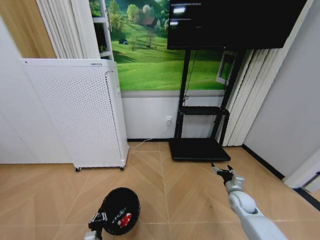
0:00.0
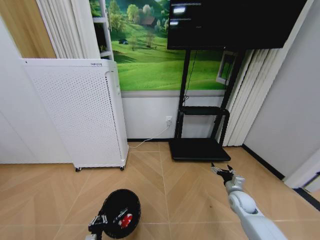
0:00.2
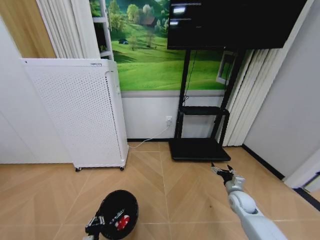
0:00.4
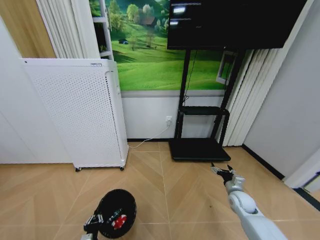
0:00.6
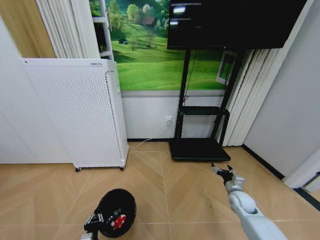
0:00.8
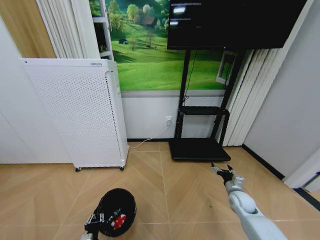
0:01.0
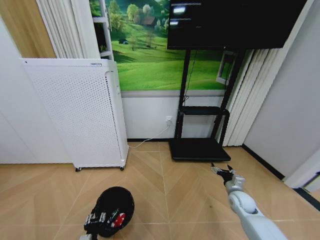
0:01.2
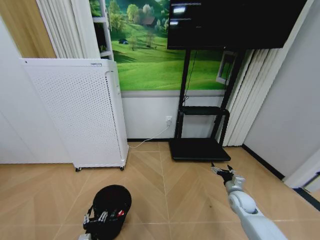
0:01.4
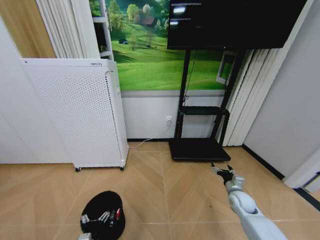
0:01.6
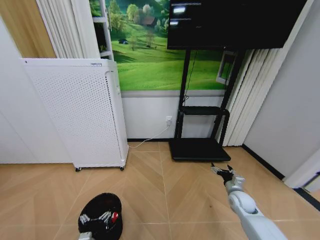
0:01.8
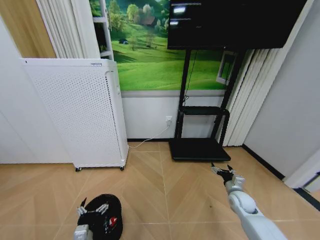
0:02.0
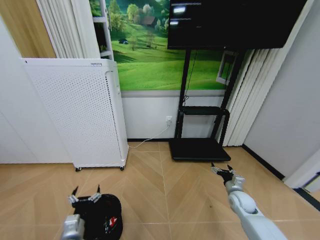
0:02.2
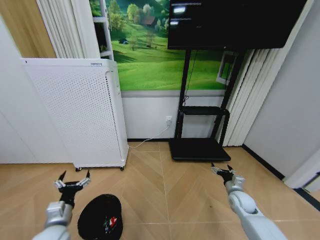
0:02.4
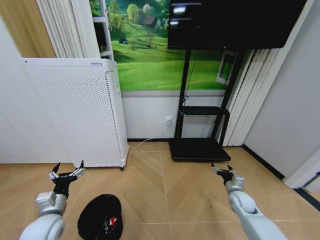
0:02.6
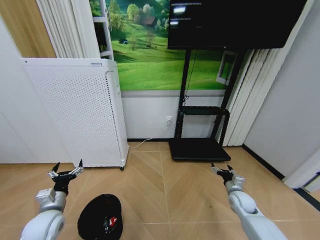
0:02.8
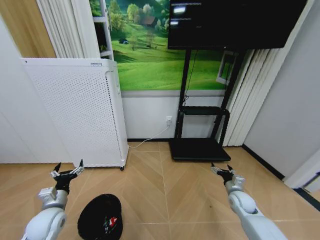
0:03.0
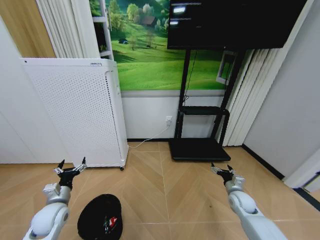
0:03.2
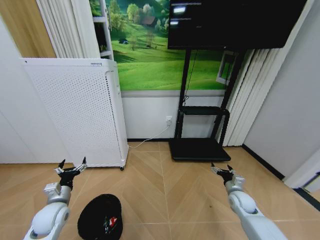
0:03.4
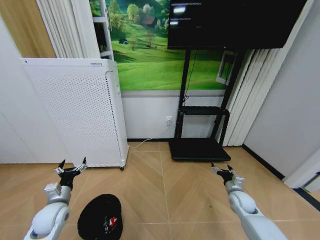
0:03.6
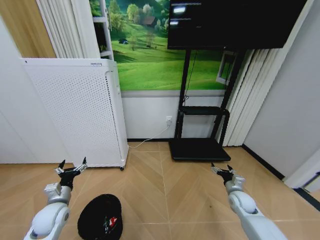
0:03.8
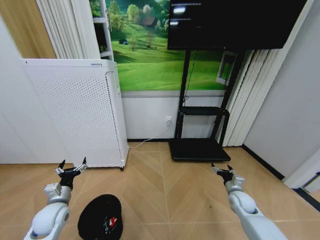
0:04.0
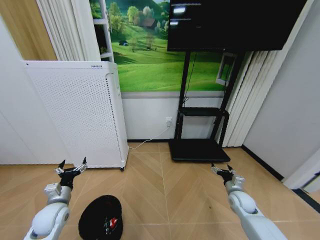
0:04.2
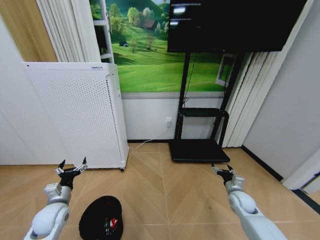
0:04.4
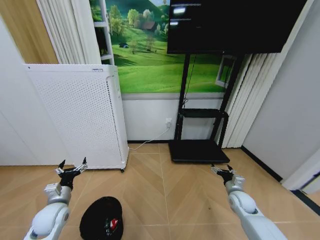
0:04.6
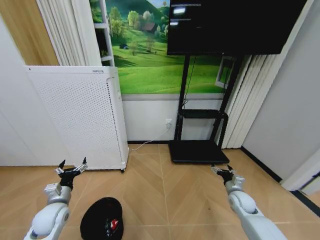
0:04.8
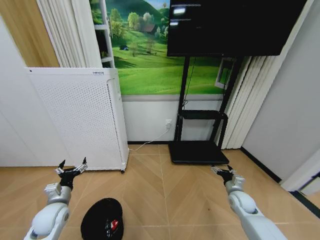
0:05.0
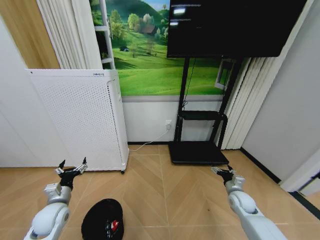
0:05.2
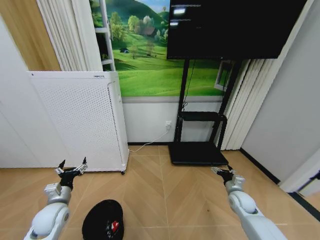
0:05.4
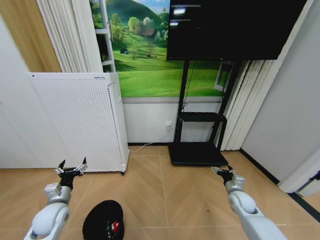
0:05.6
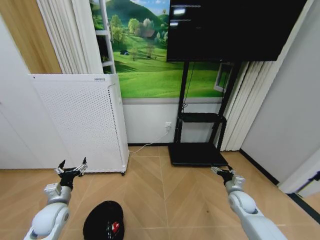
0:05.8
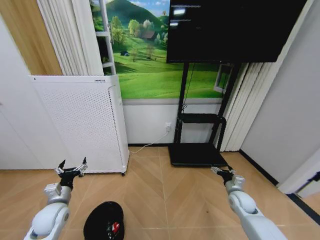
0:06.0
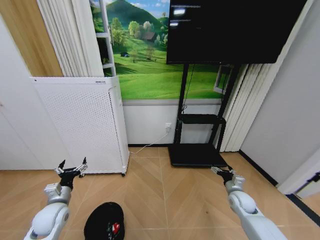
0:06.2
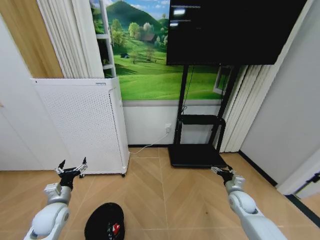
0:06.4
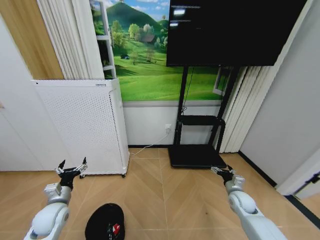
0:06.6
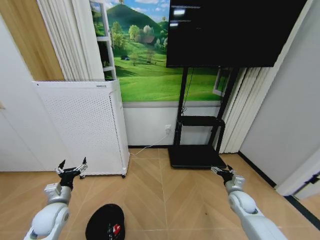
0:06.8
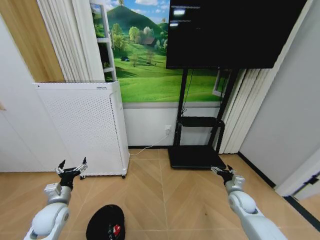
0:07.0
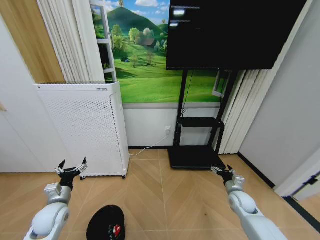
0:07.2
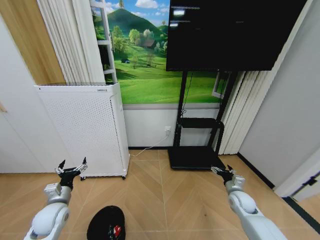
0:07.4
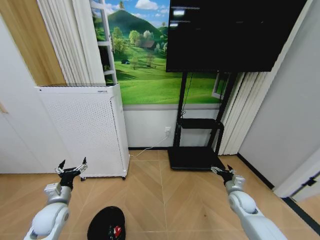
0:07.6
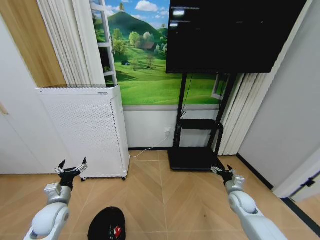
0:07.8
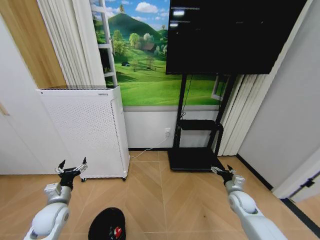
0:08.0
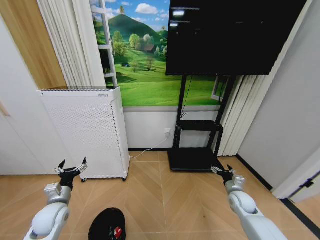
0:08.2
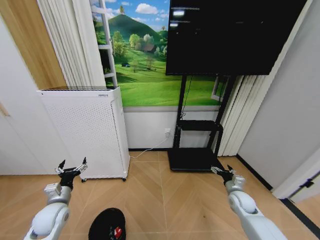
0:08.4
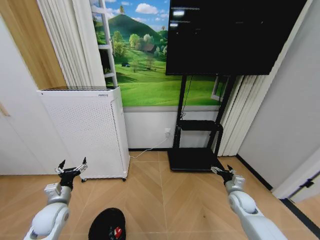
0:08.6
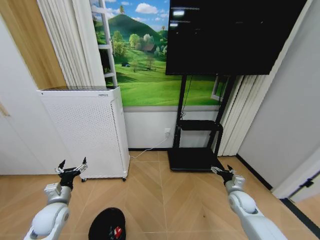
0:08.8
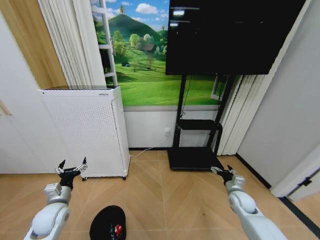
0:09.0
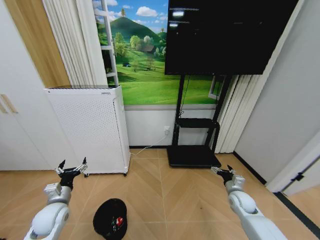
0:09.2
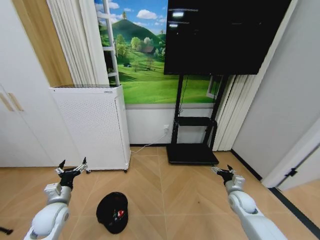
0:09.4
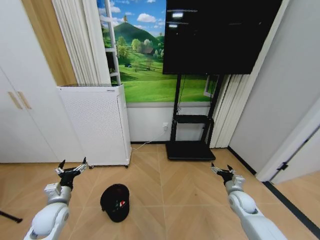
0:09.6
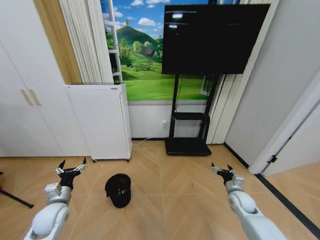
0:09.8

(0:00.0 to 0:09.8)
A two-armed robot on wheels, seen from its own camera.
Task of the whole recording: Pick up the trash bin and place the garbage on the floor into it.
0:00.0 - 0:01.4: The left gripper opens.
0:01.4 - 0:02.8: The left gripper shifts some 20 cm upward, to the left and forward, and opens its fingers.
0:02.8 - 0:04.2: The grippers make only small movements.
0:04.2 - 0:08.4: Neither gripper changes place.

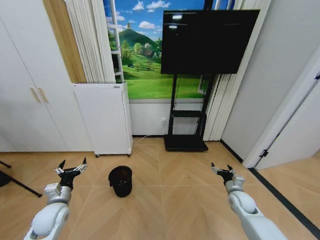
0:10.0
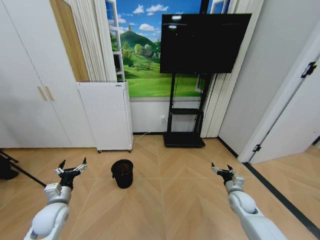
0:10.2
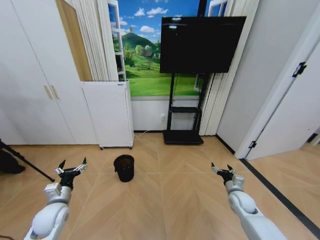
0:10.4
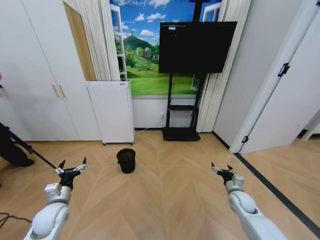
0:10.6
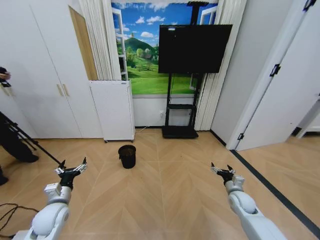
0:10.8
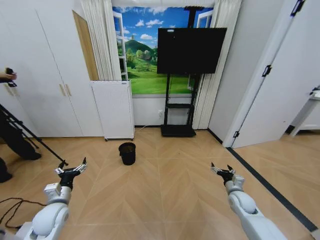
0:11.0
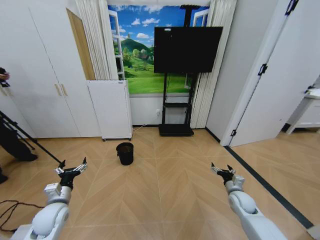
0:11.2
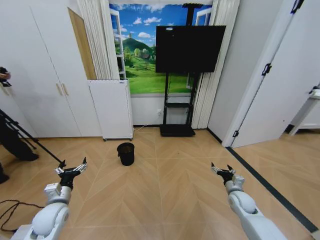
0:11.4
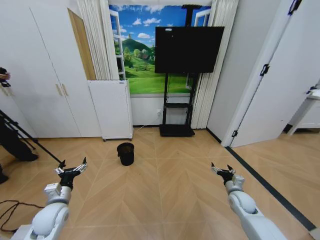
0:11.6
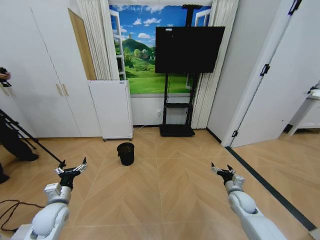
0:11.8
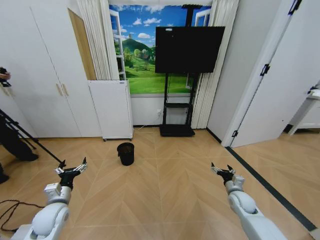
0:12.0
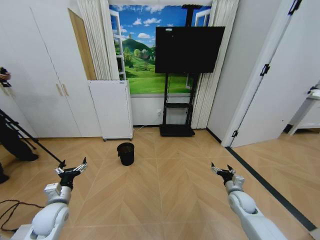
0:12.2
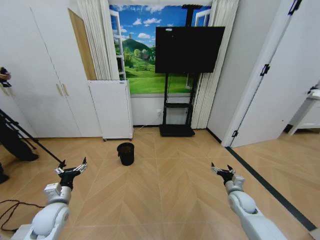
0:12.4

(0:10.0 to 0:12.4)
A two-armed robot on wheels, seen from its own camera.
Task of the whole recording: Pick up the trash bin and place the garbage on the floor into it.
0:11.2 - 0:12.4: Both grippers stay put.

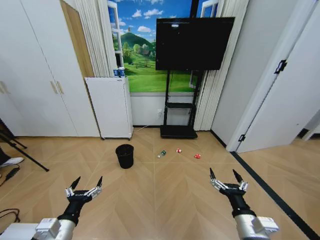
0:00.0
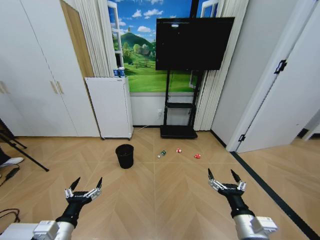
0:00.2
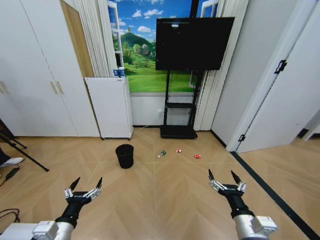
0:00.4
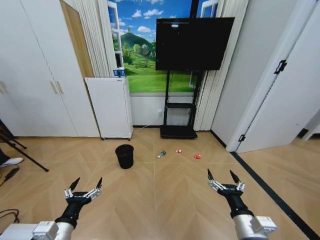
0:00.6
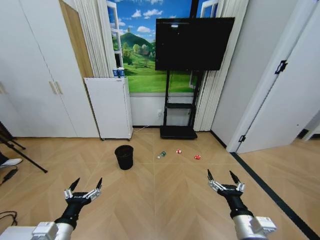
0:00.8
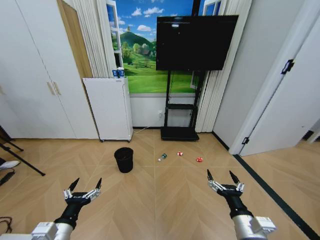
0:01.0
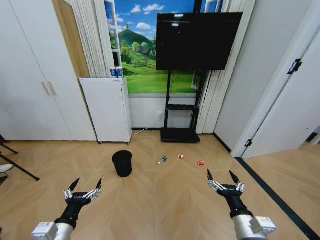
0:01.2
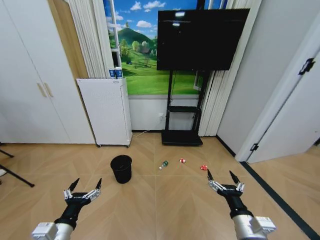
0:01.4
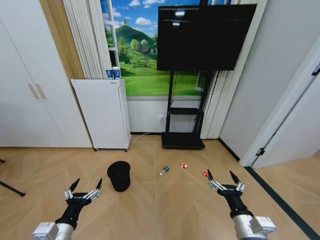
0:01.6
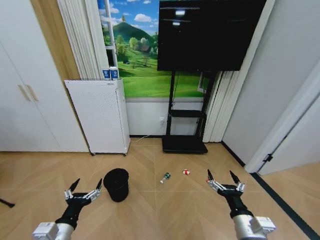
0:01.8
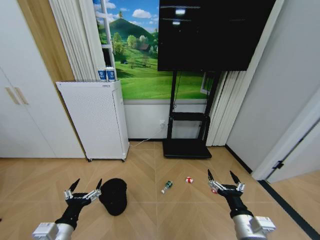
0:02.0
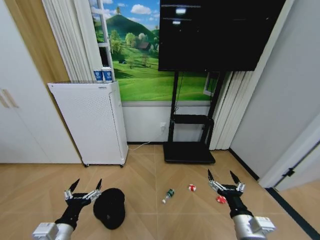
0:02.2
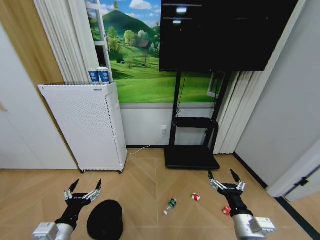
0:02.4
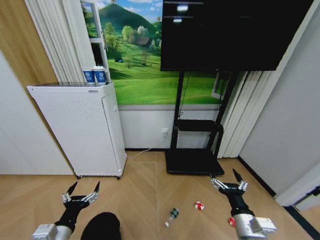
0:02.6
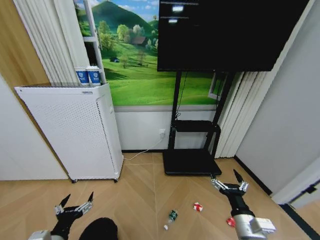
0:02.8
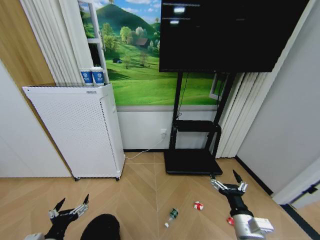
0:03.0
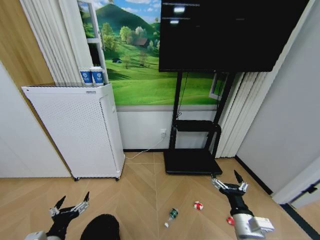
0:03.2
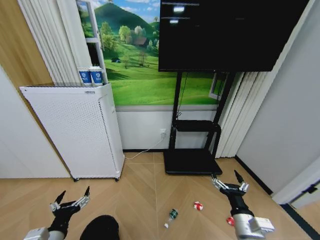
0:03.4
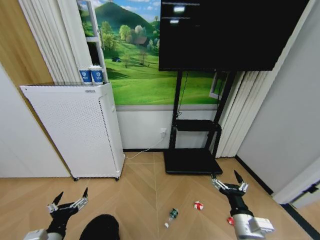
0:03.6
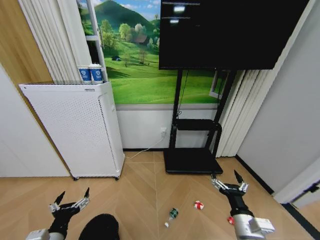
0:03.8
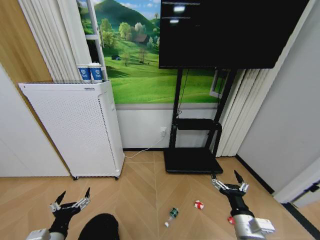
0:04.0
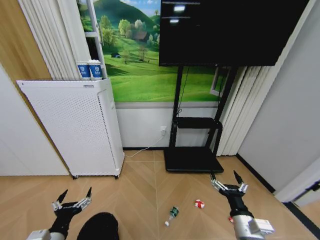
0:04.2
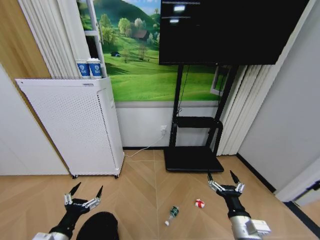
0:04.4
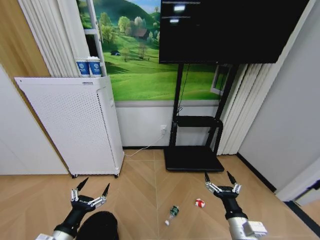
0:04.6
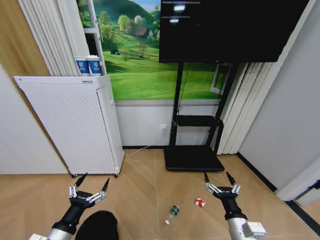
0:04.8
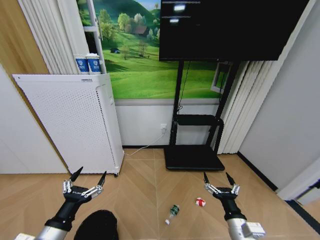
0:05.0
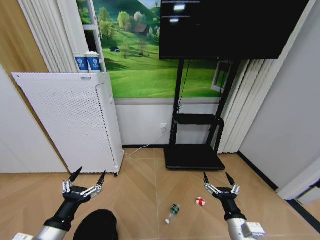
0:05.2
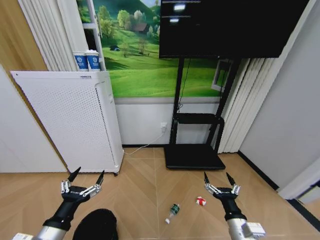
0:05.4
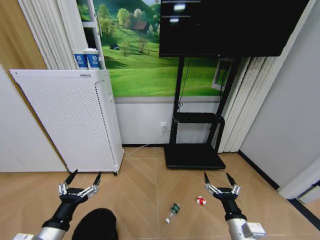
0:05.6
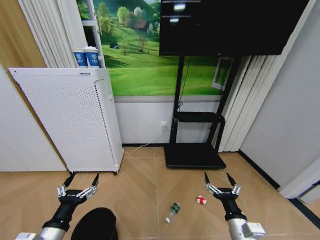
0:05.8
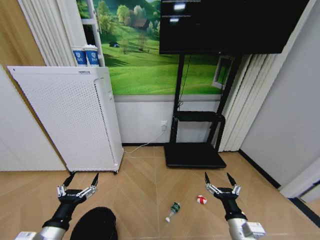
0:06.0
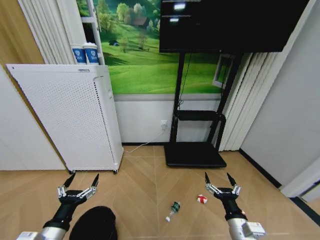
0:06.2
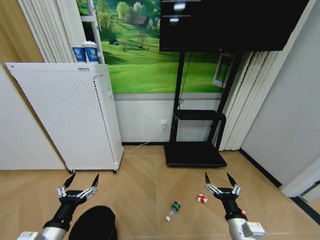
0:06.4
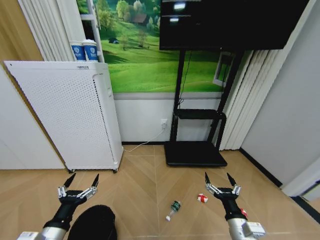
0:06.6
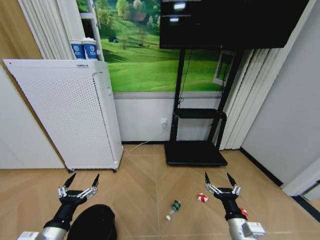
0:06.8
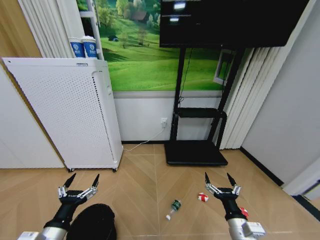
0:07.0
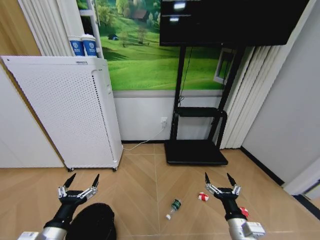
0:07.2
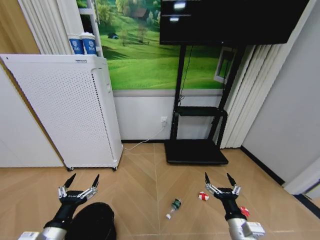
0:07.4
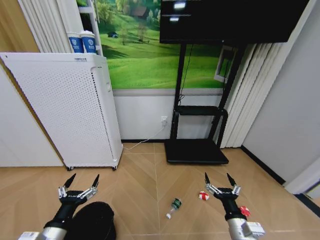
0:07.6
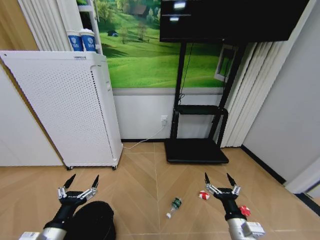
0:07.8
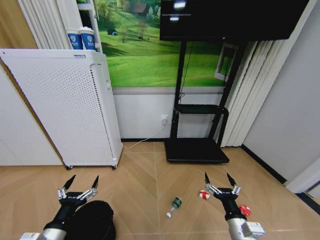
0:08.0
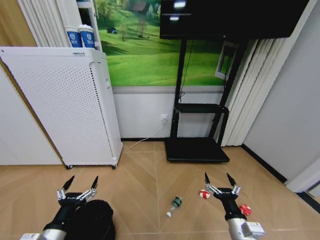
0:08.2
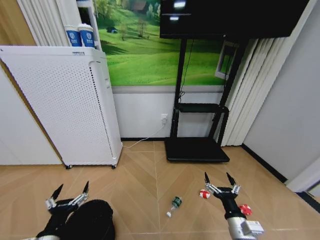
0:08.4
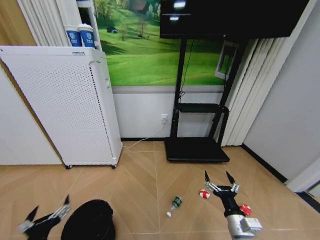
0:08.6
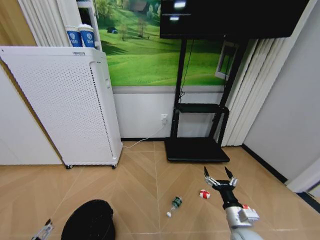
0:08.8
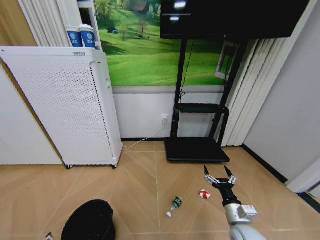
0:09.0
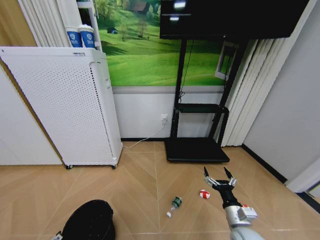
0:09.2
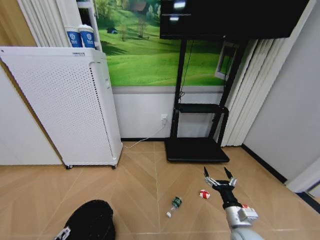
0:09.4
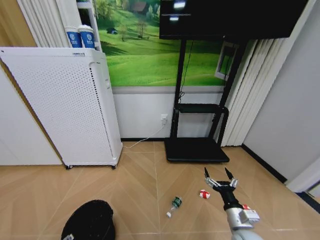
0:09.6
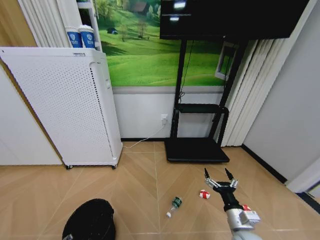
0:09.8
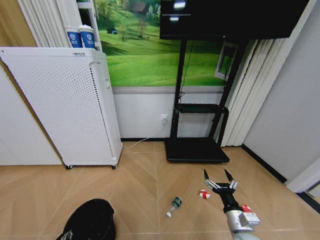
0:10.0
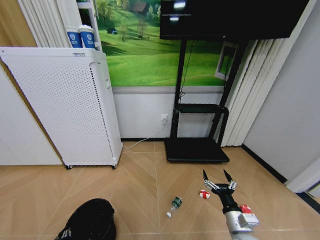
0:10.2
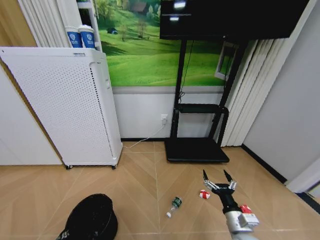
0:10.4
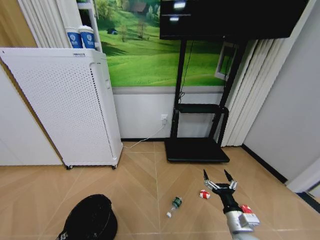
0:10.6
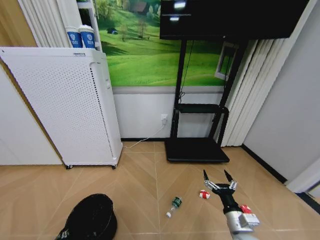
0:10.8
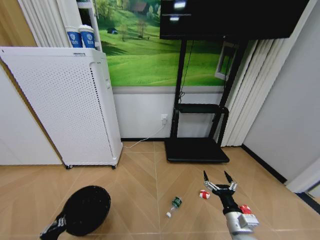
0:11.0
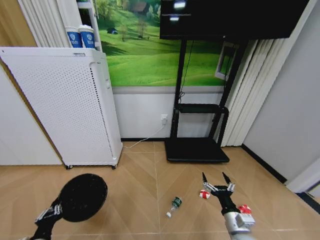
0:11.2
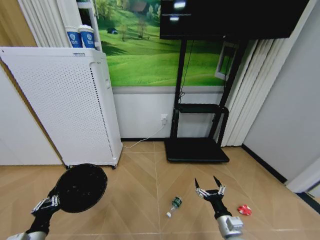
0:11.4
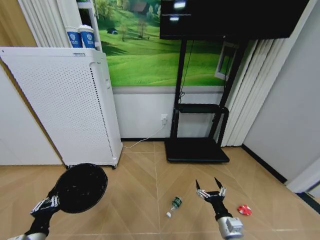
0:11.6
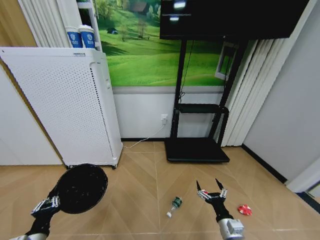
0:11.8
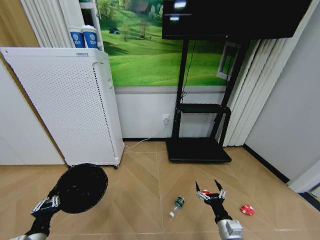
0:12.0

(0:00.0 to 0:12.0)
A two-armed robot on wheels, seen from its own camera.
Task of the whole recording: Pick up the trash bin and place the garbage on the floor into it.
0:03.0 - 0:04.4: The grippers move only a little.
0:06.0 - 0:07.6: Neither gripper changes place.
0:07.6 - 0:09.0: The right gripper changes place by roughly 5 cm. The left gripper heads backward, covering some 5 cm.
0:09.0 - 0:10.4: The left gripper goes some 10 cm downward, and closes.
0:10.4 - 0:12.0: The right gripper goes about 5 cm downward. The left gripper ends up some 5 cm from where it was.
